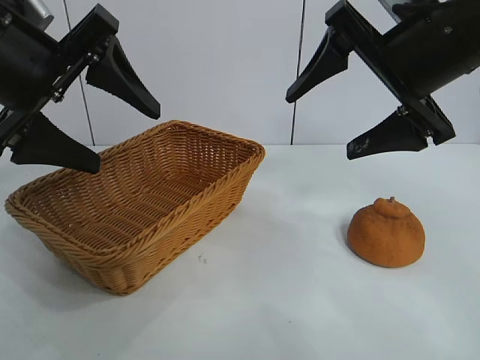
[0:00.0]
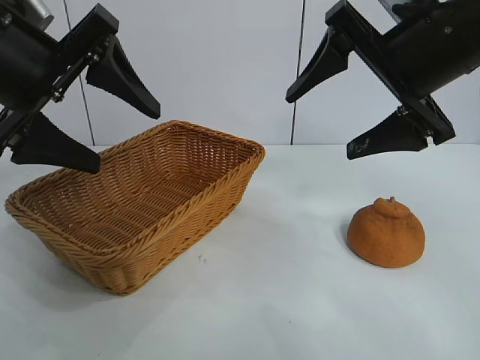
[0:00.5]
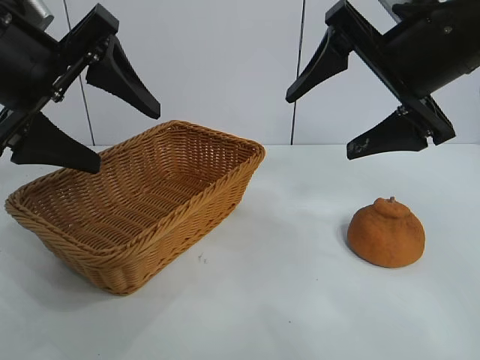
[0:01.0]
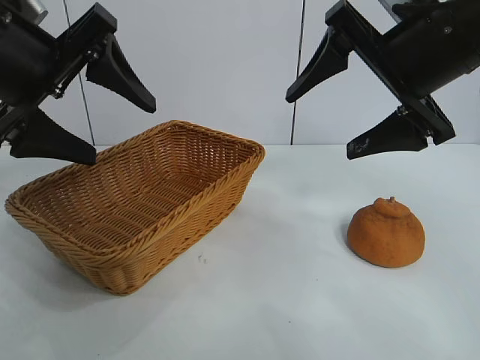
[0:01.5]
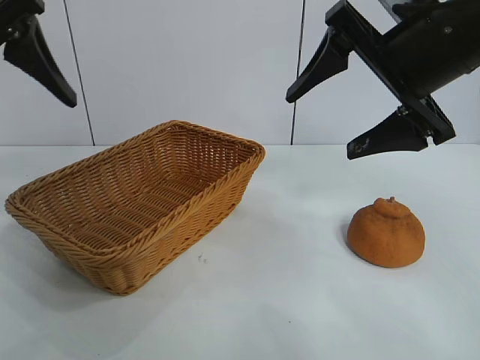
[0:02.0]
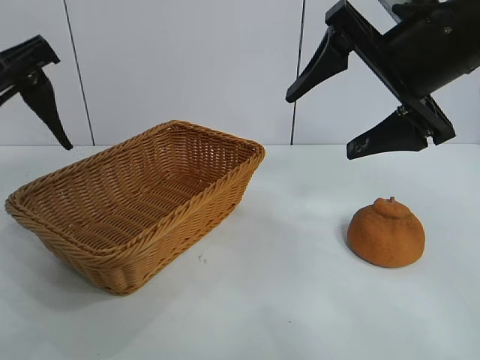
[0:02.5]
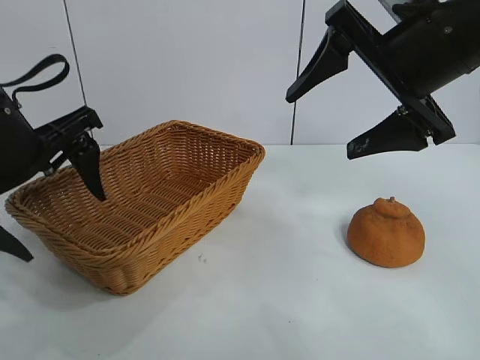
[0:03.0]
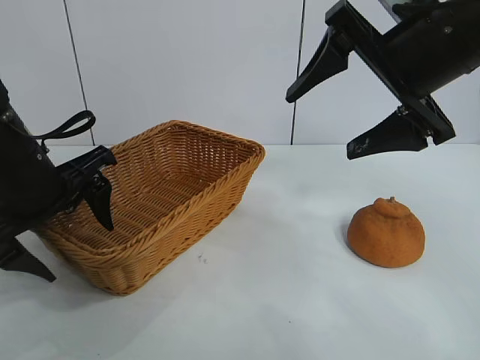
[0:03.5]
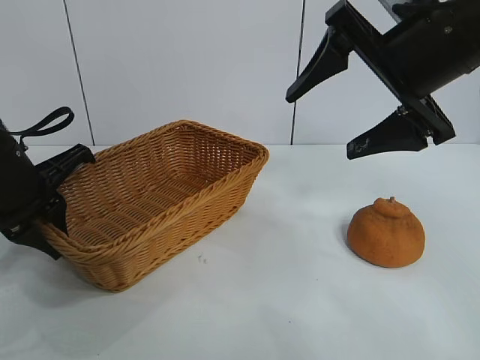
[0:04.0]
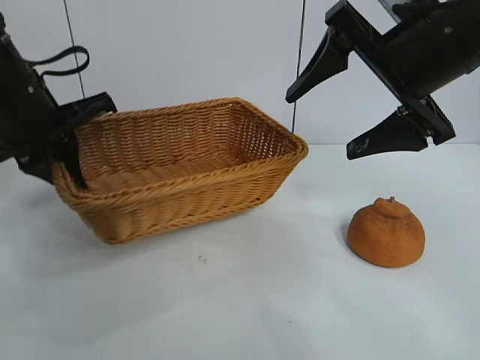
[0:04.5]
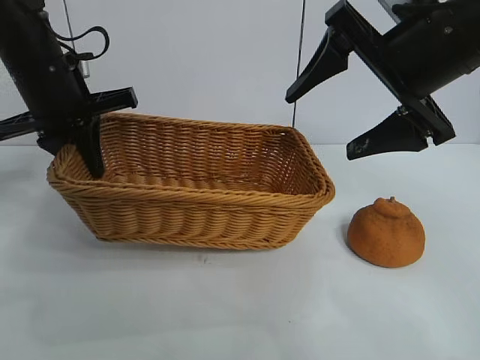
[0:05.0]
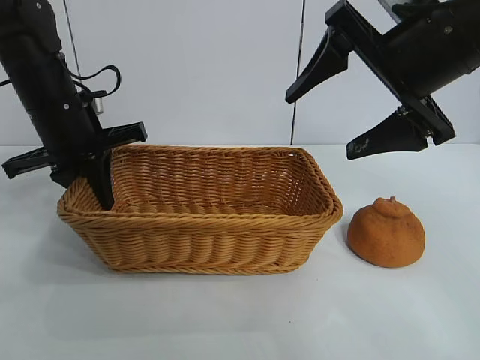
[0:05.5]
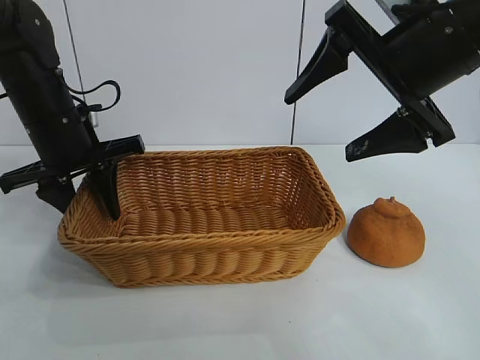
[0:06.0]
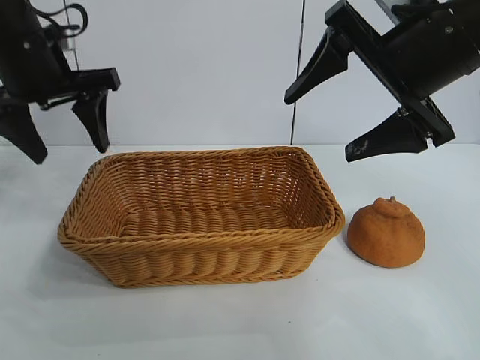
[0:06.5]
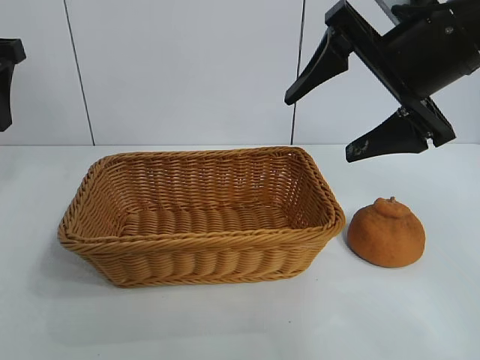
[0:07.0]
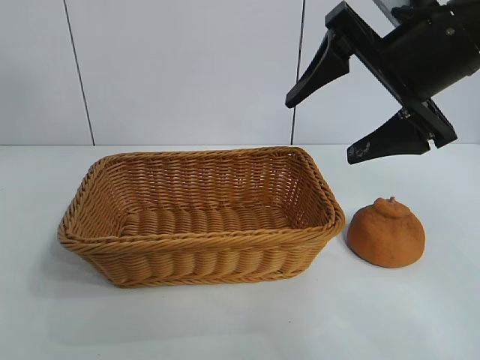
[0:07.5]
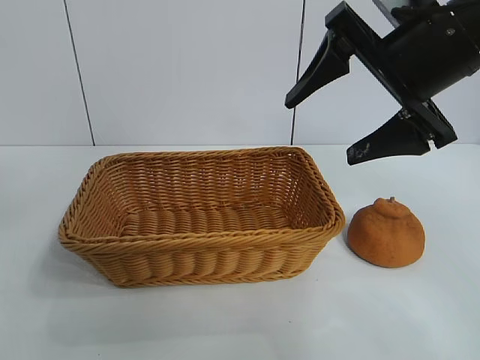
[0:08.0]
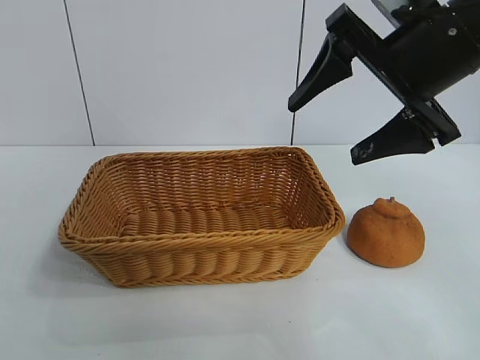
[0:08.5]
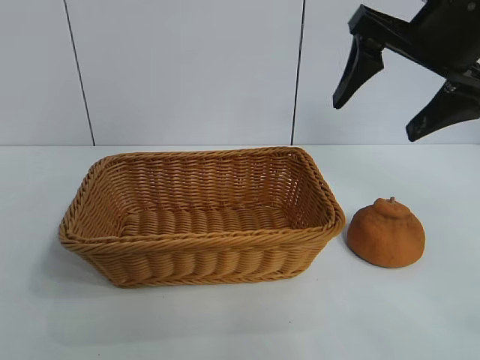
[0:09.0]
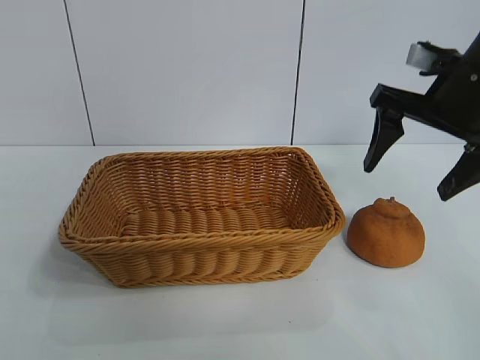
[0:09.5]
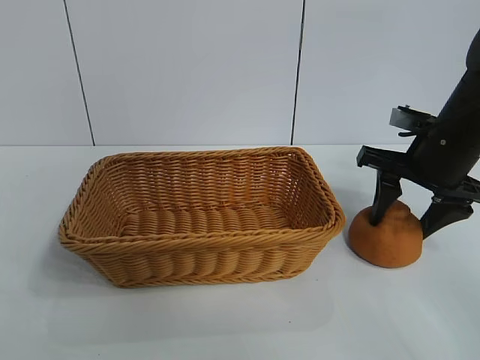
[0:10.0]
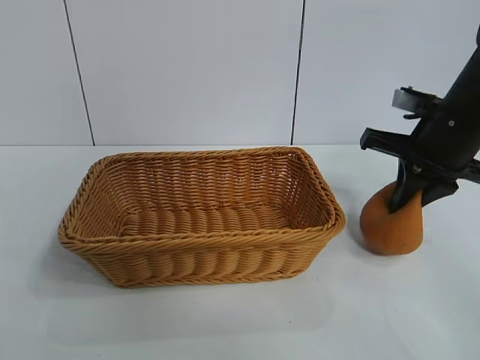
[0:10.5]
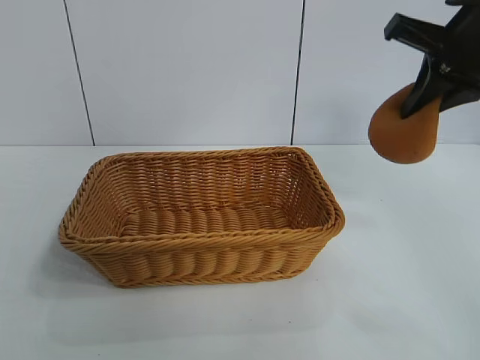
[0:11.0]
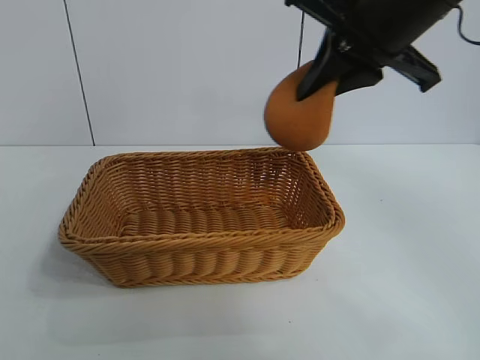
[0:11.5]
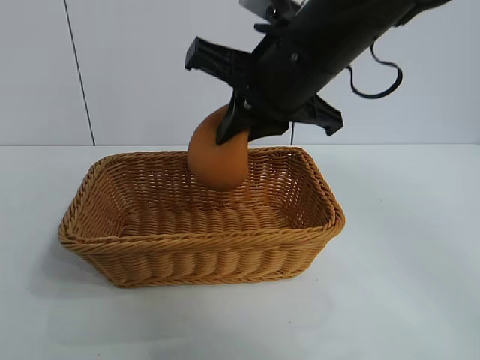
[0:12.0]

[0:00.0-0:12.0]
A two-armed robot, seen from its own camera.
Task of the whole recording: pick up the orange and put it into the basket.
Step, 0:01.5 to 0:03.5: Grasp the basket with left gripper.
Step, 0:04.0 to 0:06.0: Place the basket in the center of view with left gripper.
Step, 0:06.5 to 0:10.0: Grasp the orange with right gripper.
